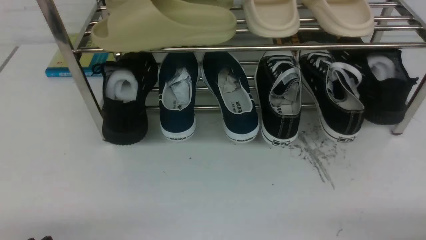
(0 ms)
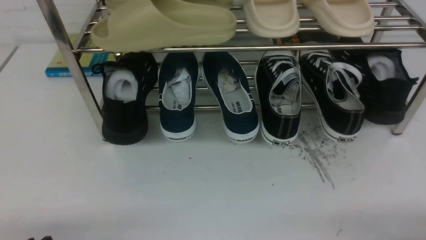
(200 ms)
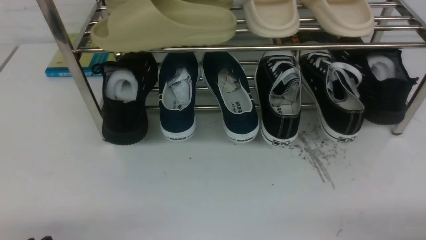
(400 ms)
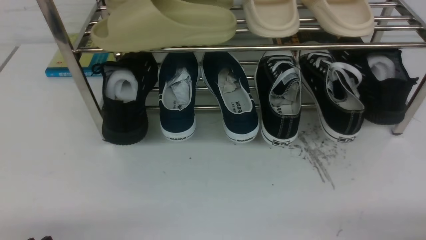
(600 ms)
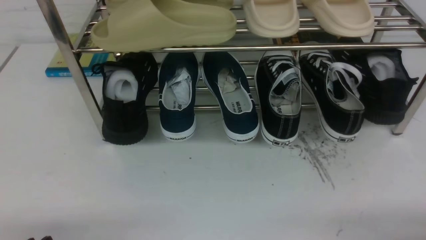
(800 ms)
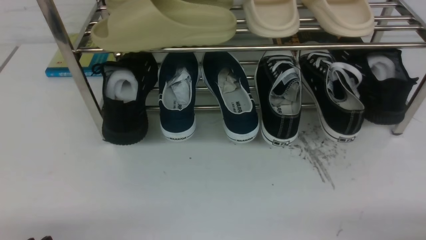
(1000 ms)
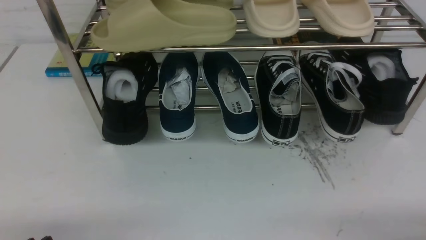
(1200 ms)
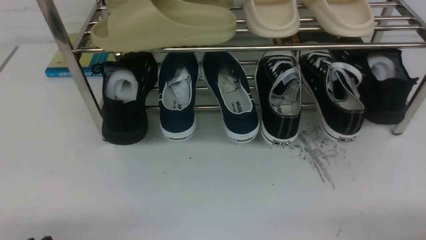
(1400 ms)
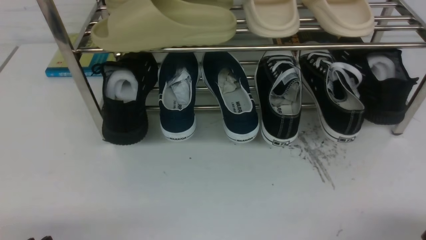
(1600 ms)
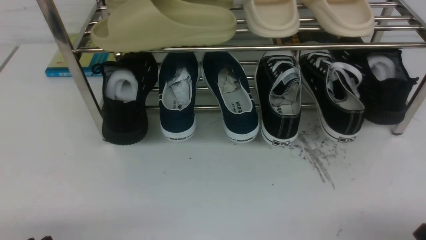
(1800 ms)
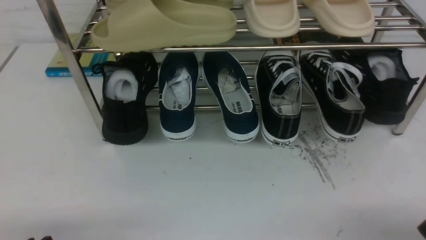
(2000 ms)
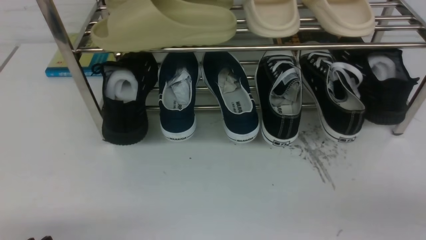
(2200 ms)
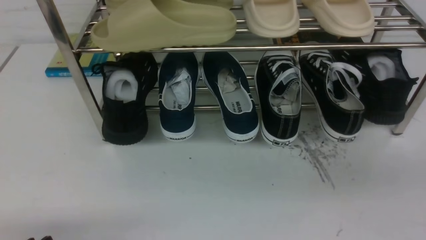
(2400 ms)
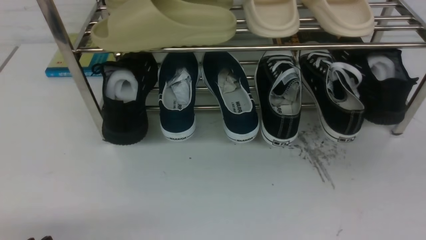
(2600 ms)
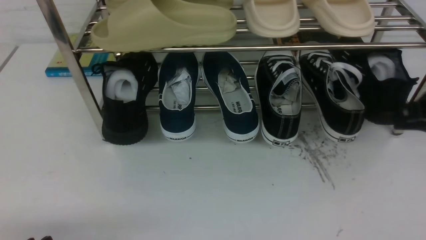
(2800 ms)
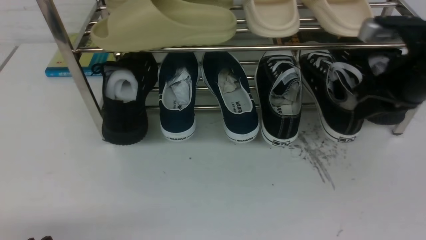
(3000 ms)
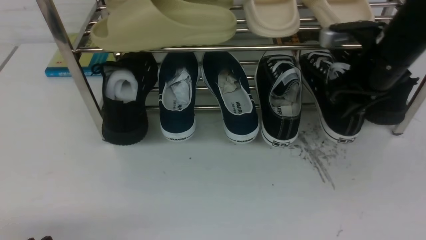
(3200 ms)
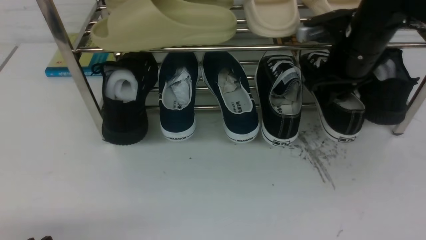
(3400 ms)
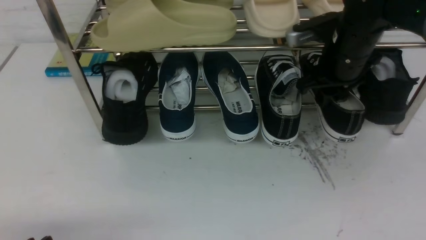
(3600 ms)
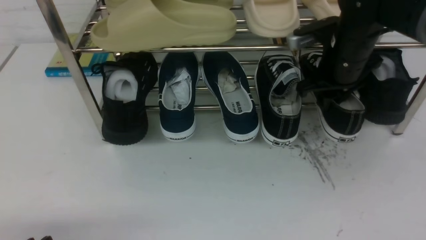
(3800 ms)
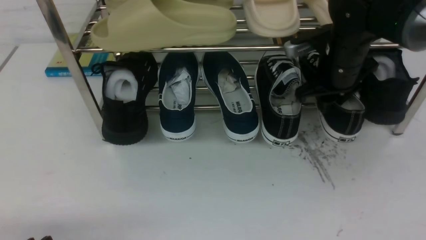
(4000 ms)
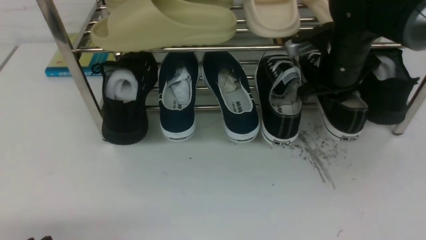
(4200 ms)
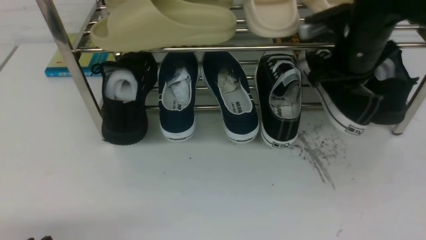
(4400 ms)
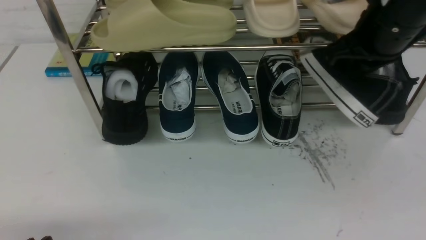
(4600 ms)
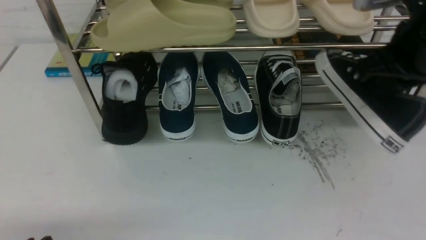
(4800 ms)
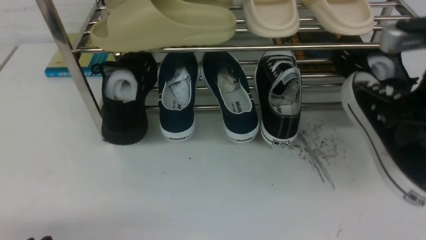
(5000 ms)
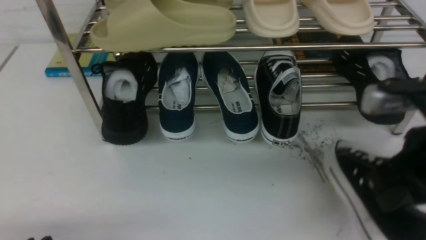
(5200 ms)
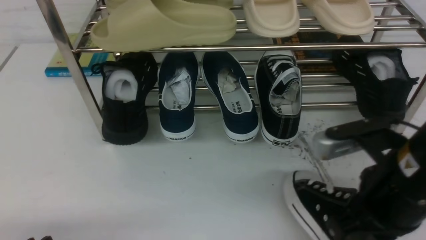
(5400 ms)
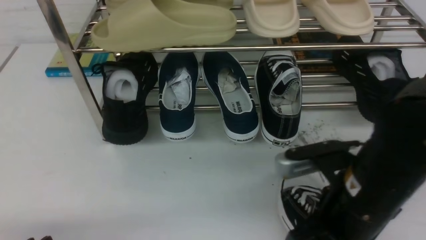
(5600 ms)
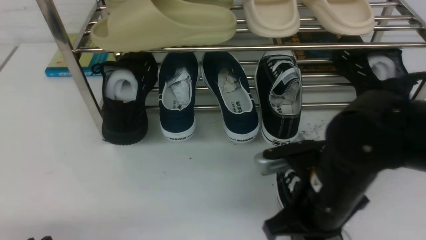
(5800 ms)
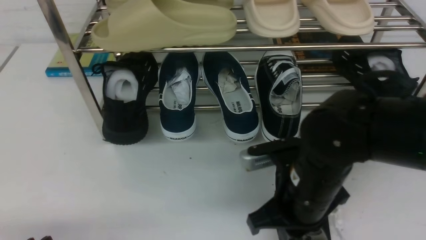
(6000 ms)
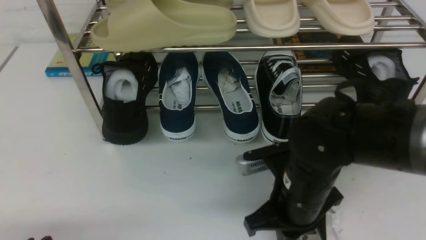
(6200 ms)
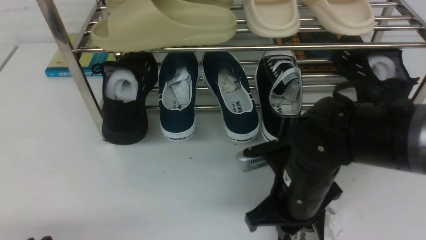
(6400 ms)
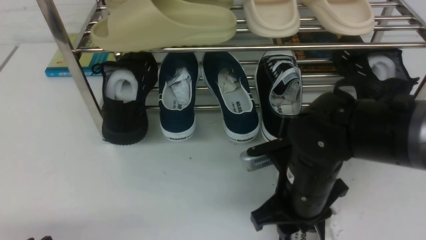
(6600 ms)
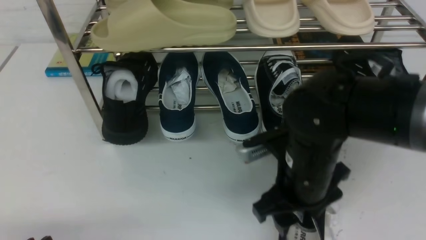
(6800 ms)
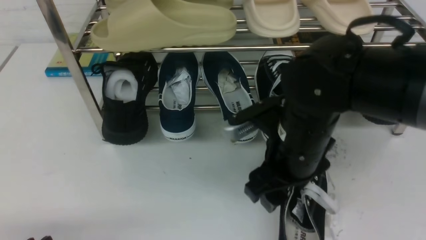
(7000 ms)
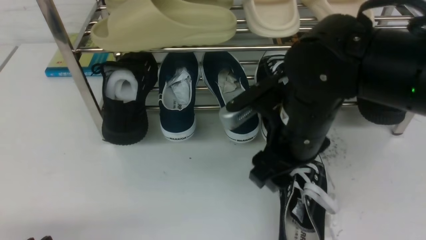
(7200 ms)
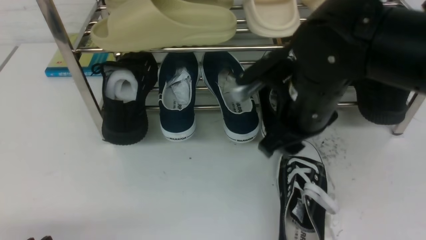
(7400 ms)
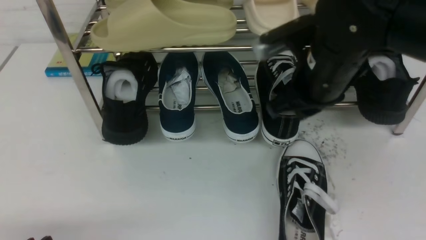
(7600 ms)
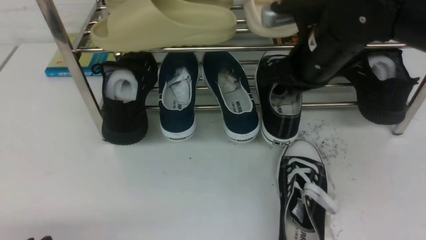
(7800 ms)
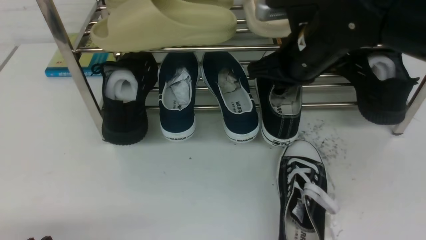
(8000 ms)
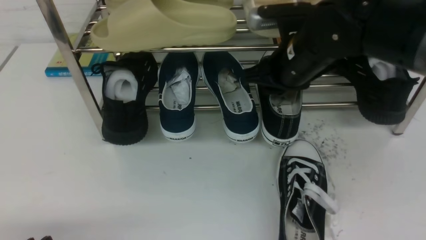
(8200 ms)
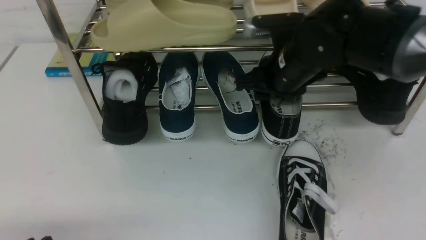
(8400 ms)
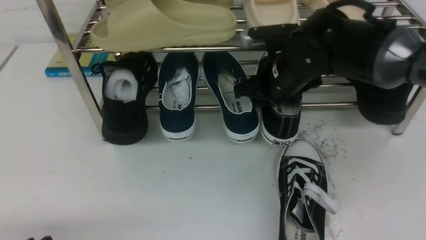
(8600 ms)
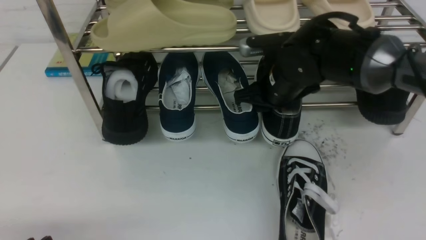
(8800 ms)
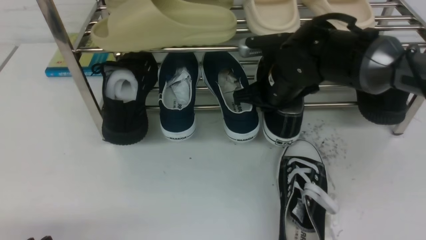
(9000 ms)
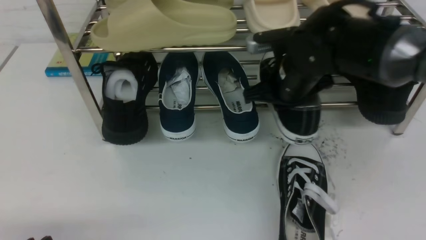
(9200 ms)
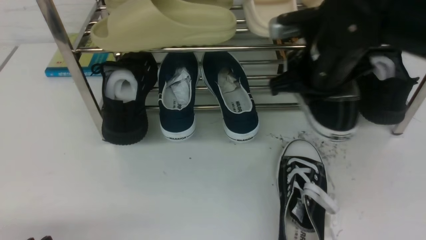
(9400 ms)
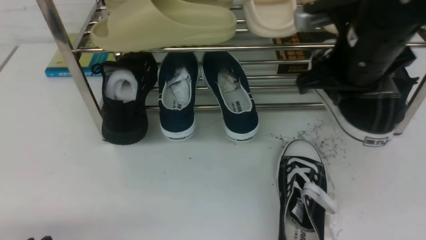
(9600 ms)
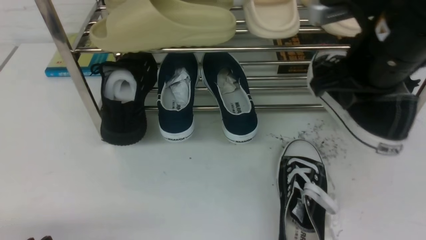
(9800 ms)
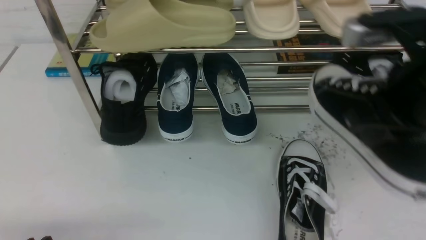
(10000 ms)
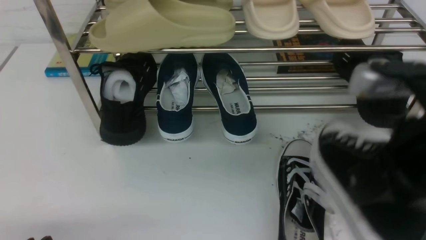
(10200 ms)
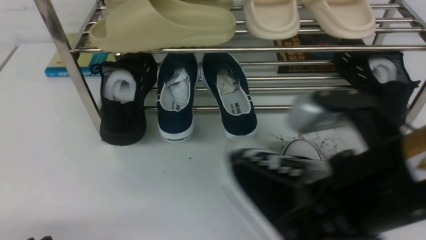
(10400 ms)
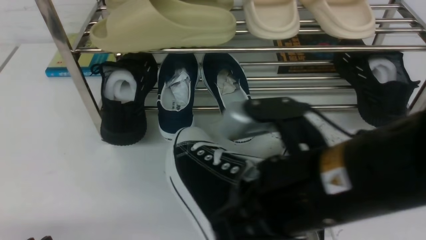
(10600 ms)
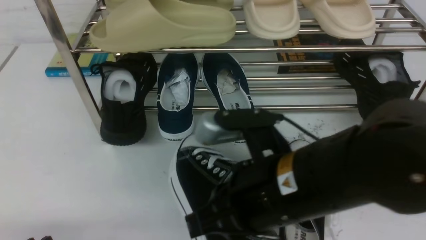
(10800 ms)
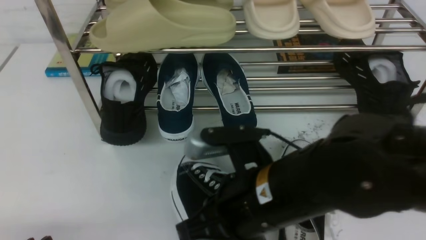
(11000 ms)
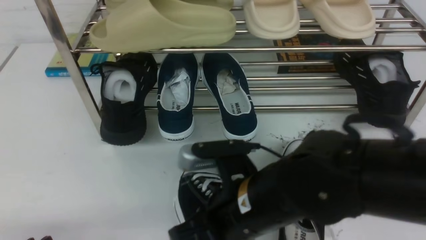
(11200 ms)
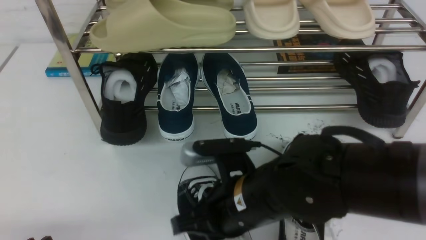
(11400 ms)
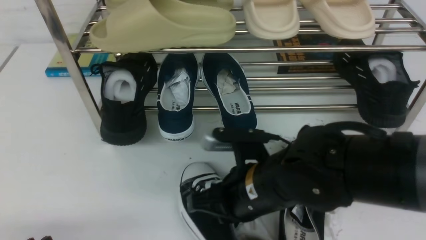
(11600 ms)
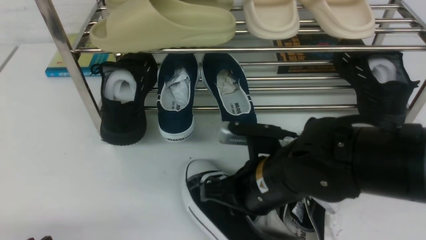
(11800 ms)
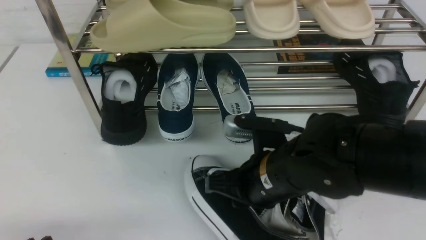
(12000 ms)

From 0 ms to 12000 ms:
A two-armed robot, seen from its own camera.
Step, from 0 ms to 4600 ms: use the right arm to clamp a shoe on the right side of the shoe rack.
Step, from 4800 ms to 7000 ms: use the right arm to take out the clamped shoe from the shoe rack and put it down.
Step, from 7200 ms to 9200 ms: use the right arm to clamp a shoe on the right side of the shoe rack.
From 1600 ms to 3000 ms: The right gripper heads forward and upward, covering some 30 cm.
From 3000 ms to 4400 ms: The right gripper is displaced forward and to the left by about 10 cm.
From 4400 ms to 6000 ms: The right gripper shifts approximately 20 cm backward, downward and to the left.
From 6000 ms to 7600 ms: The right gripper shifts roughly 15 cm upward and forward, and opens and closes again.
From 7600 ms to 9000 ms: The right gripper goes roughly 10 cm forward and downward, and opens, then closes once more.
From 9000 ms to 10400 ms: The right gripper moves backward, about 25 cm.
From 10400 ms to 12000 ms: The right gripper shifts about 15 cm downward, forward and to the left, and opens its fingers.

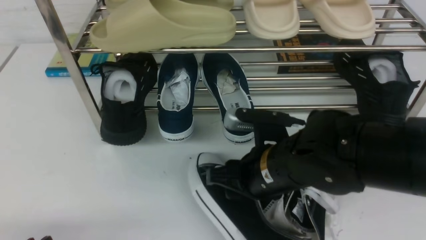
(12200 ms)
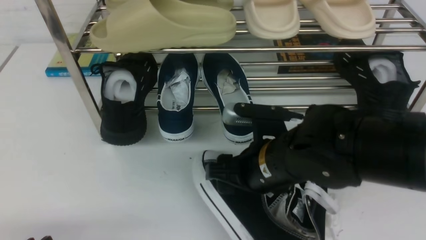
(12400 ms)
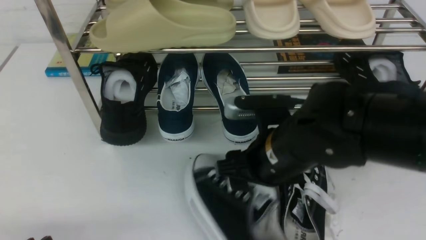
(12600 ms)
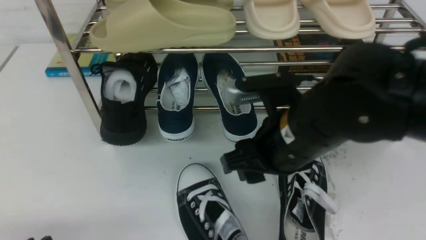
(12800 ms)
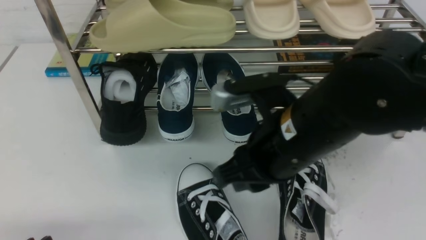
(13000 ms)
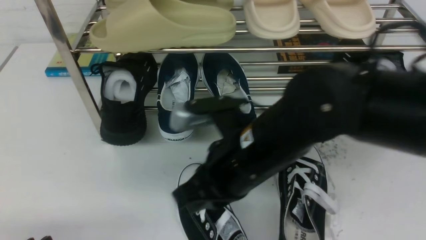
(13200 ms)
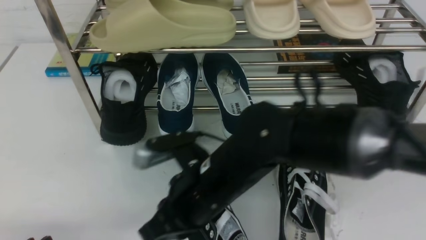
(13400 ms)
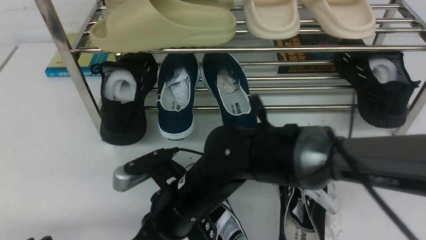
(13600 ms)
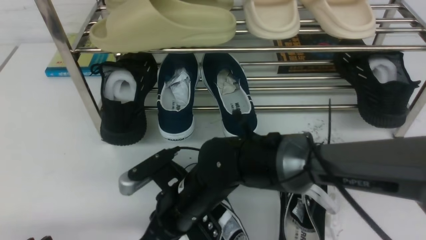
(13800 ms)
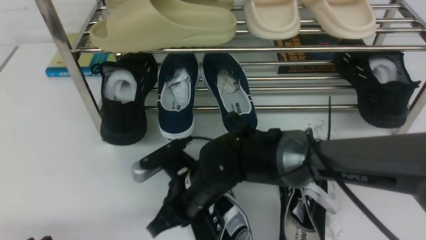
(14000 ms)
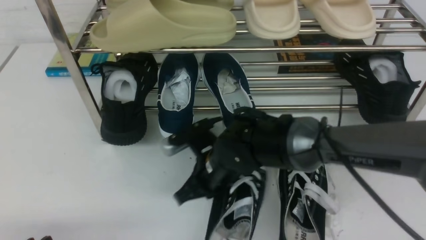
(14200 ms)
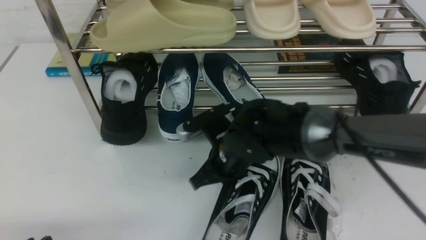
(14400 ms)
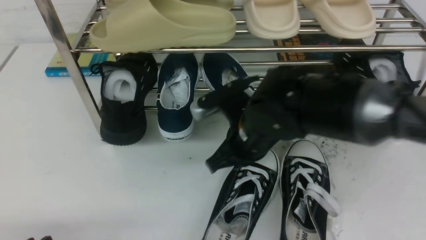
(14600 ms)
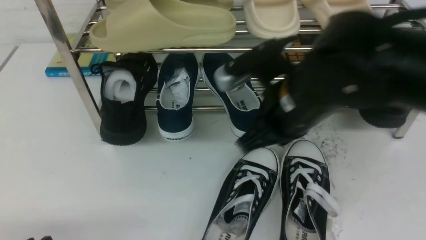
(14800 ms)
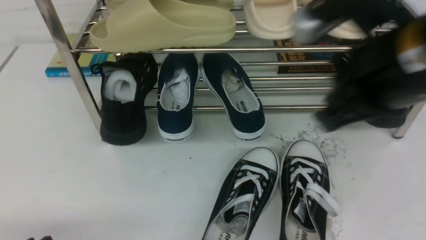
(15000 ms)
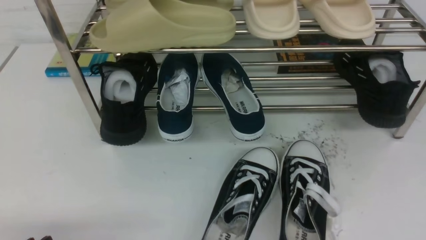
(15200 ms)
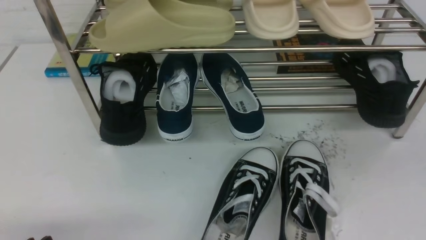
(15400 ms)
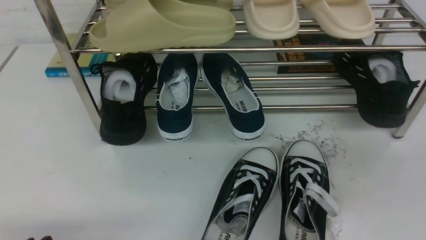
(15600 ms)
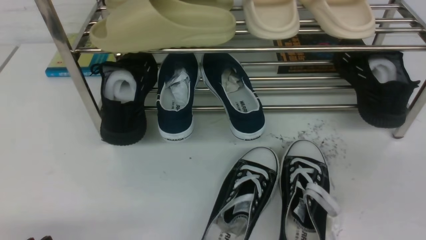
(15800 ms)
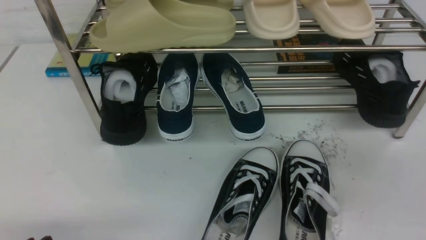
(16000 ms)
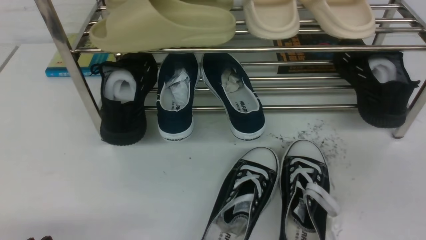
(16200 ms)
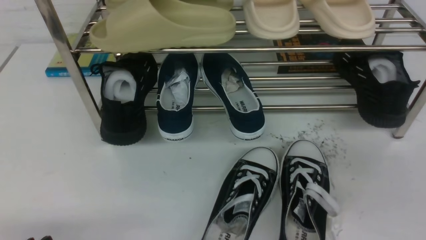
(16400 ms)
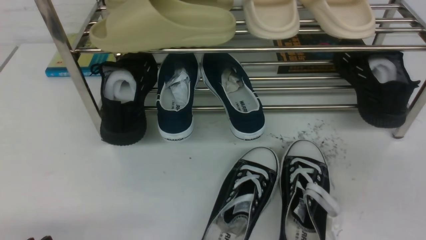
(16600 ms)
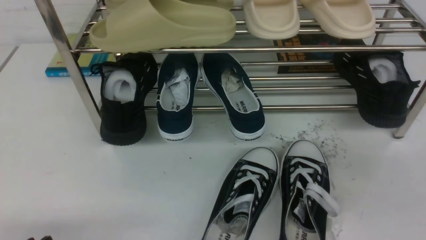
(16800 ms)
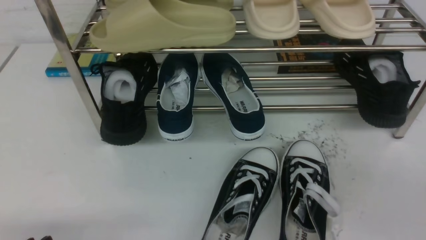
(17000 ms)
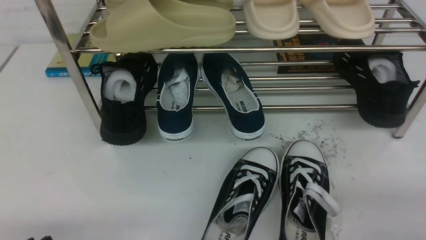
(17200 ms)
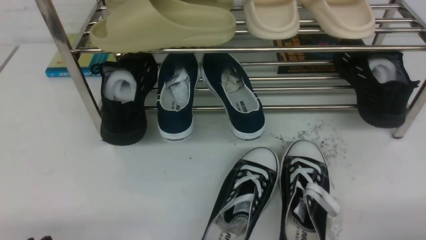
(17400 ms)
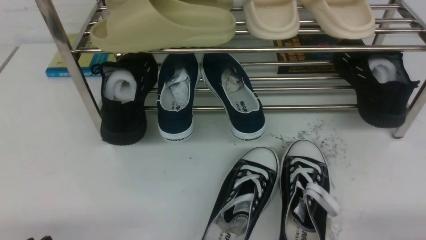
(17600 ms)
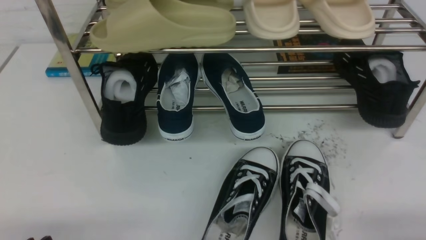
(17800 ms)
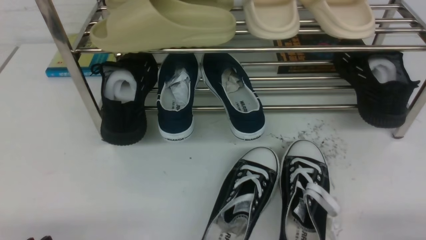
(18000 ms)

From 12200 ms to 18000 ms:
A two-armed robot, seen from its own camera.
From 12200 ms to 13600 ms: The right gripper is displaced to the left by approximately 10 cm, and closes.
From 13600 ms to 15000 ms: The right gripper shifts approximately 30 cm upward and to the right.
From 15000 ms to 16600 ms: The right gripper is displaced backward, to the right and downward by approximately 20 cm.
From 16600 ms to 18000 ms: The right gripper goes some 15 cm downward.
